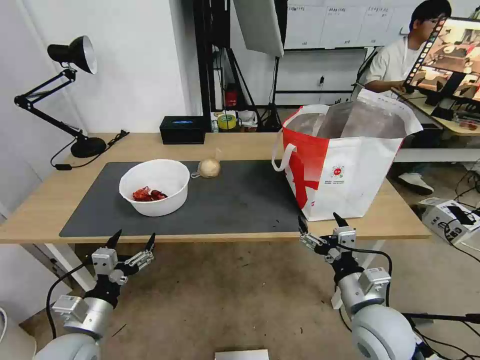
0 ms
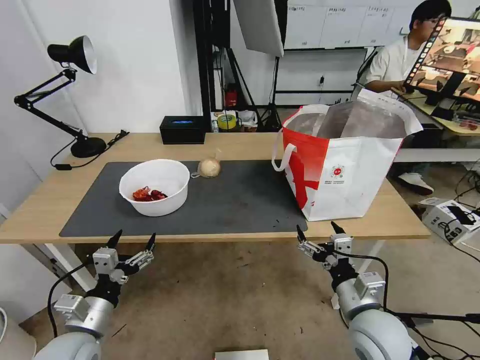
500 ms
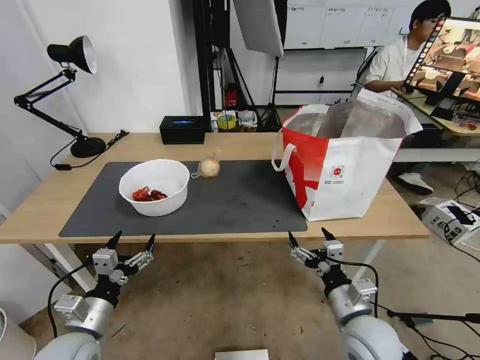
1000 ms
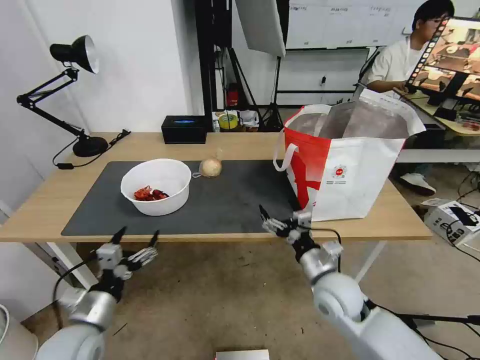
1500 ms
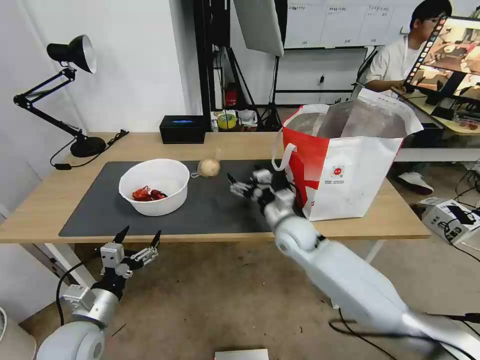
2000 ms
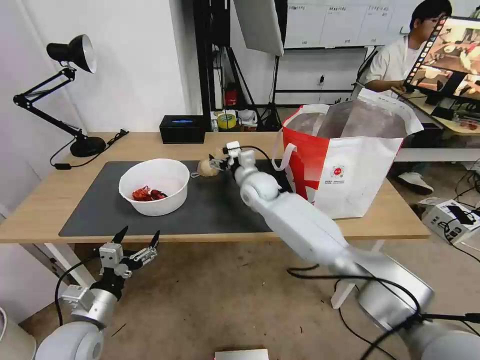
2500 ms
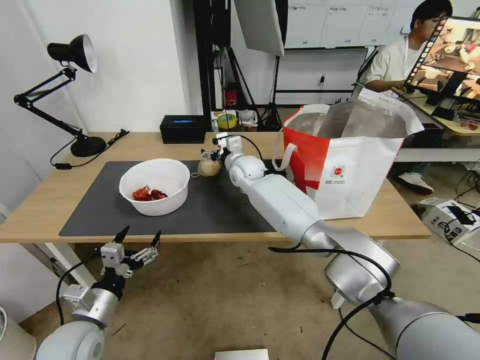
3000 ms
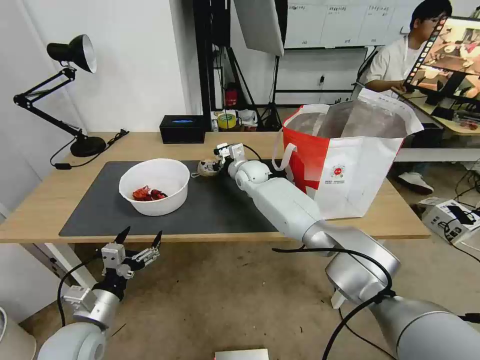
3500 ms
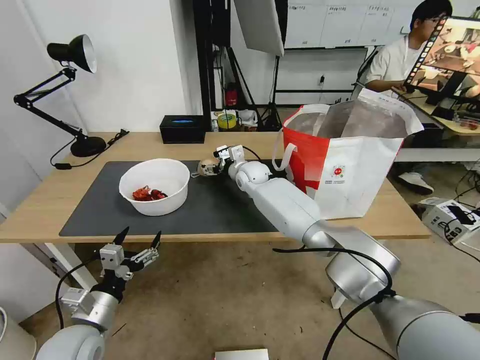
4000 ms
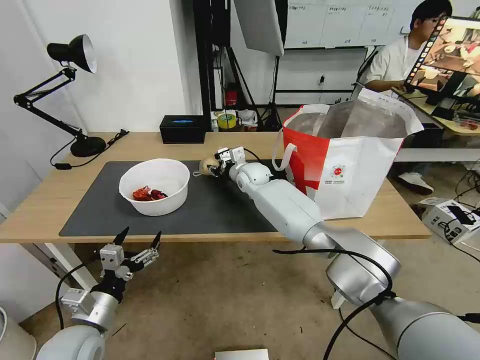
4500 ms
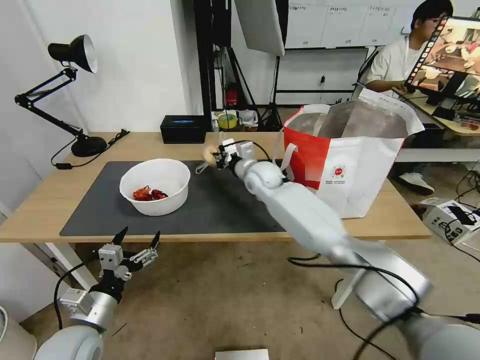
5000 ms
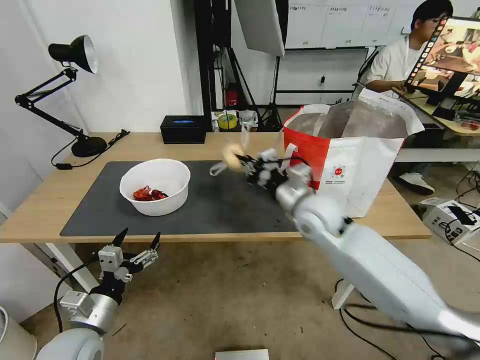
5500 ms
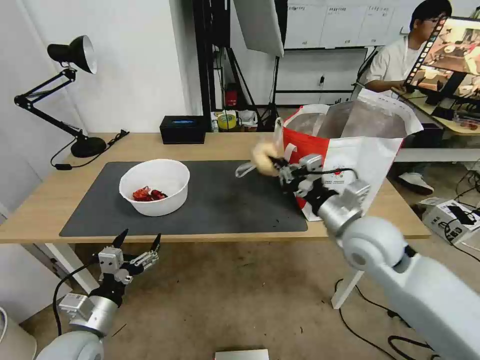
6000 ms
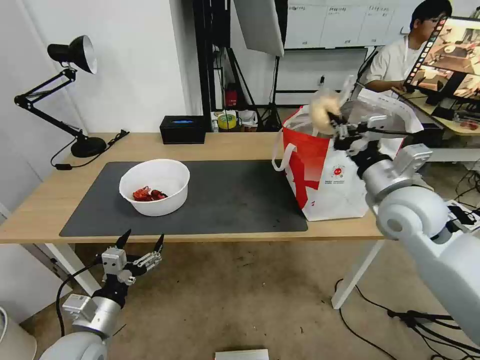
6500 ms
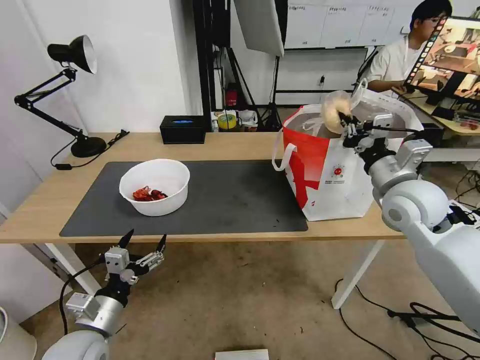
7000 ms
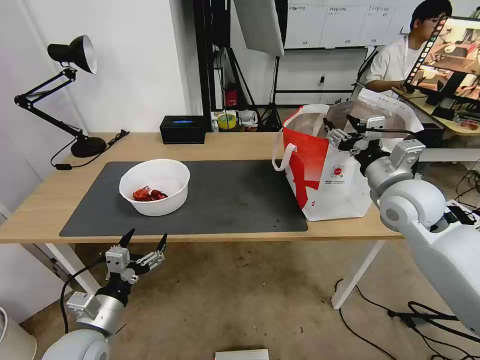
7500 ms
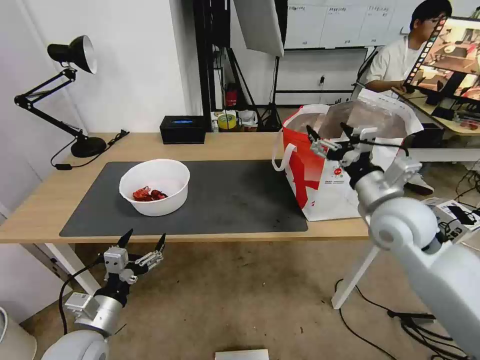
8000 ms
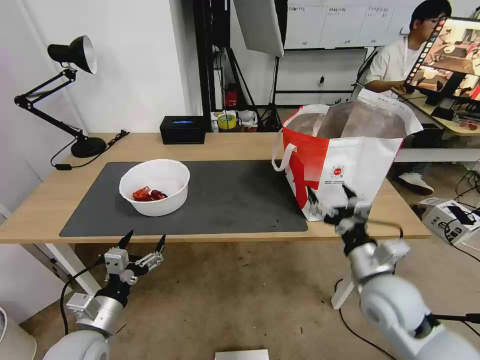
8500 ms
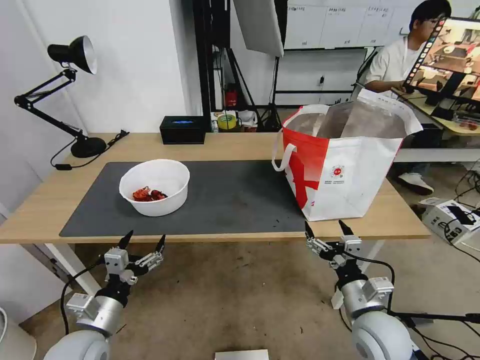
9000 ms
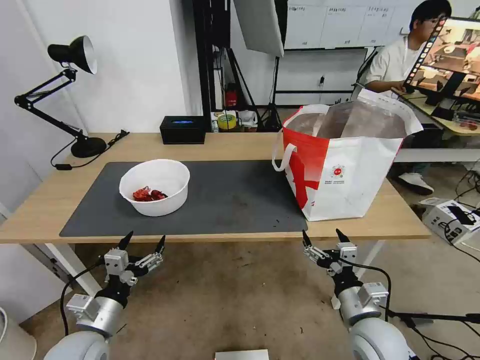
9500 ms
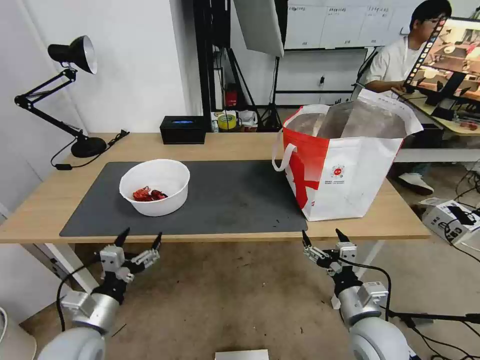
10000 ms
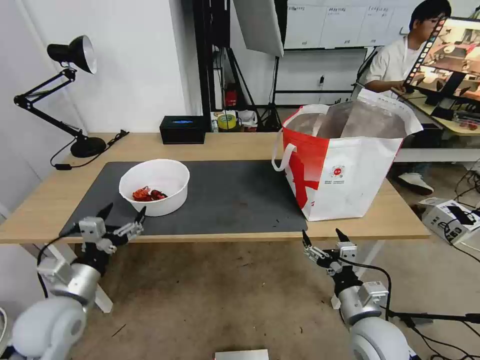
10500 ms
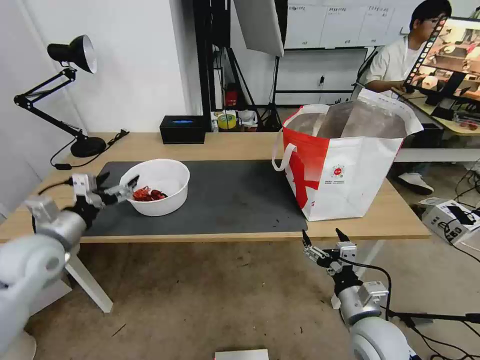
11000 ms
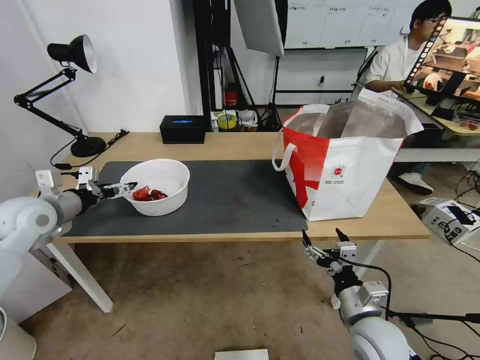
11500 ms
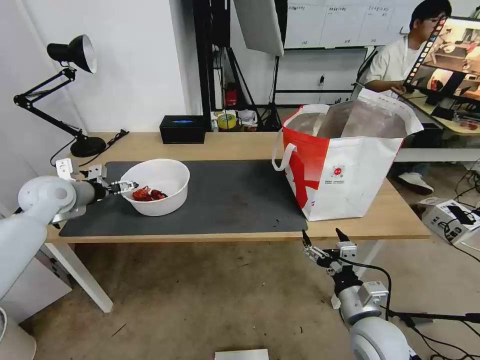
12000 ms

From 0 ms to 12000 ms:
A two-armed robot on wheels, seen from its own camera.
Task of the whole recording: Pick up the trash from the table and place it into the takeout bag.
From 0 ms to 2000 ms: The right gripper heads forward and to the left, covering some 25 cm.
From 2000 ms to 4000 ms: The right gripper travels forward and to the left by approximately 20 cm.
From 4000 ms to 6000 ms: The right gripper travels backward and to the right by about 35 cm, and closes up.
From 6000 ms to 8000 ms: The right gripper goes some 5 cm to the right, and opens up.
From 8000 ms to 10000 ms: The right gripper moves downward and backward, about 25 cm.
From 10000 ms to 12000 ms: The left gripper heads forward, upward and to the left, covering about 35 cm.

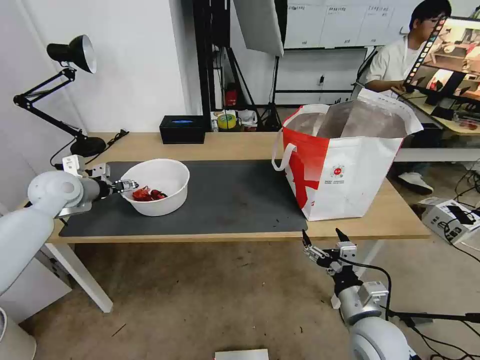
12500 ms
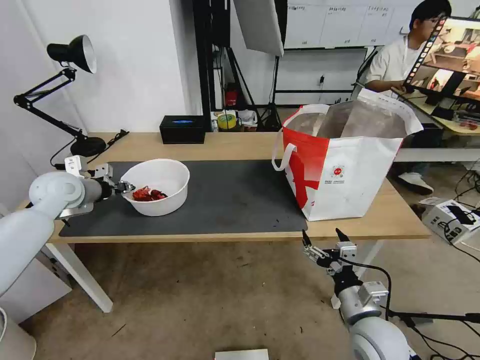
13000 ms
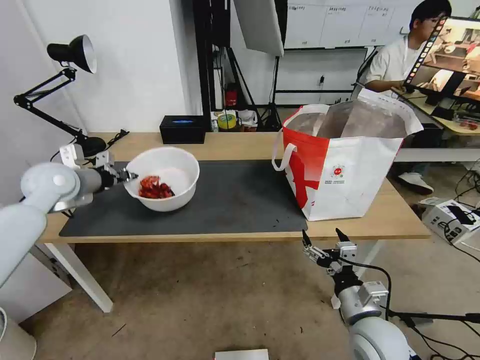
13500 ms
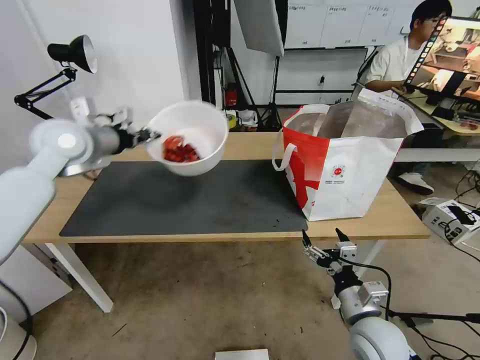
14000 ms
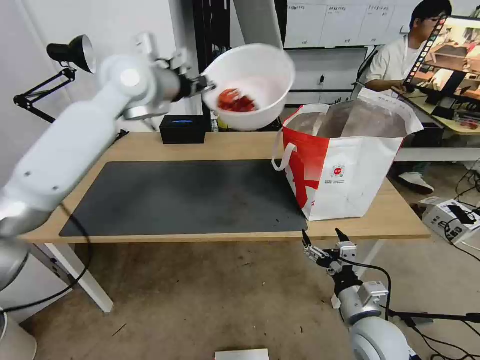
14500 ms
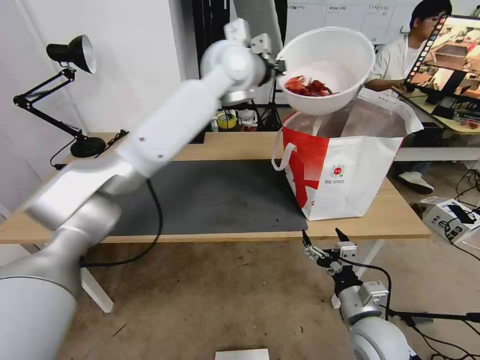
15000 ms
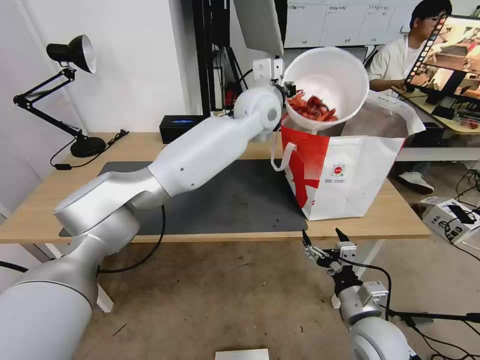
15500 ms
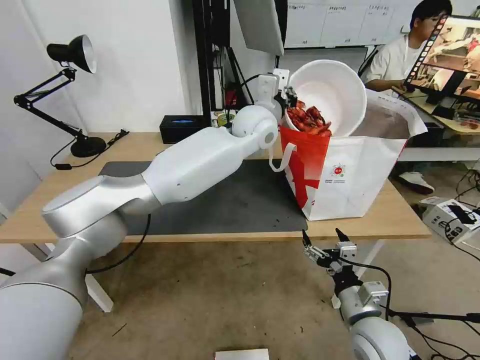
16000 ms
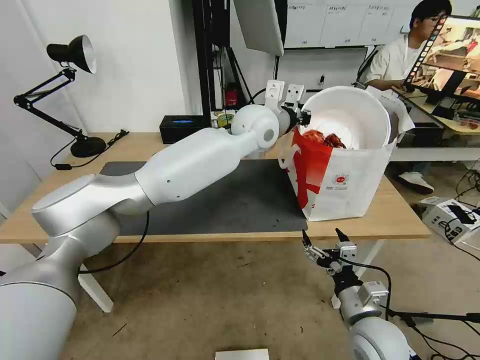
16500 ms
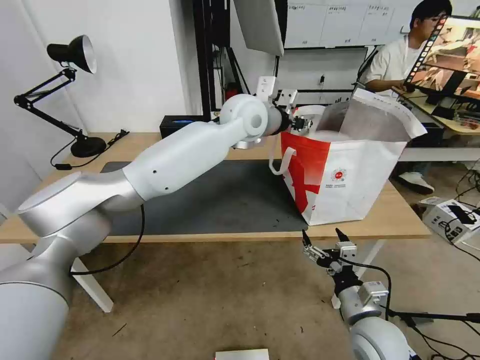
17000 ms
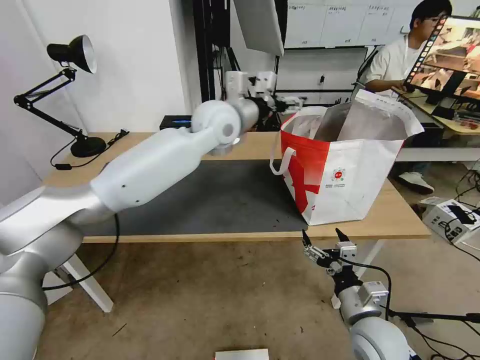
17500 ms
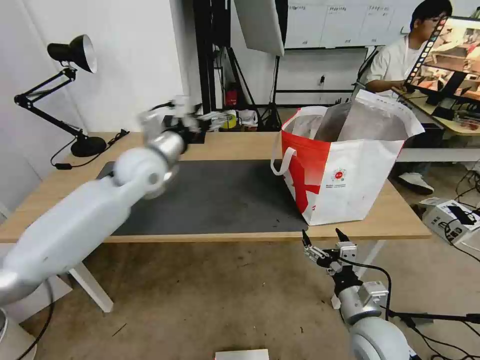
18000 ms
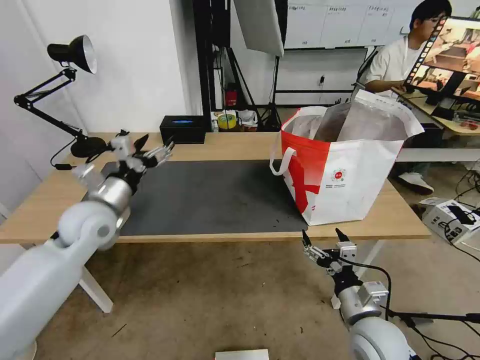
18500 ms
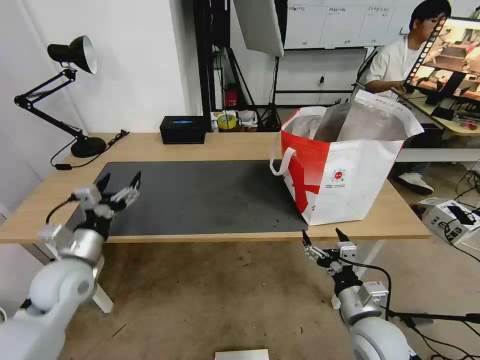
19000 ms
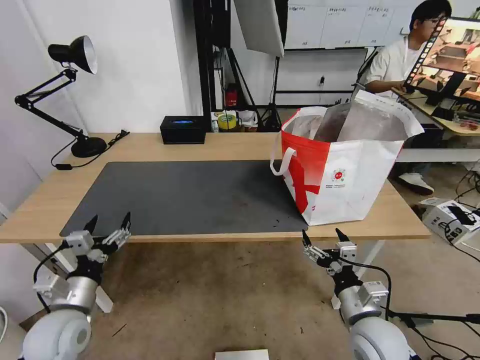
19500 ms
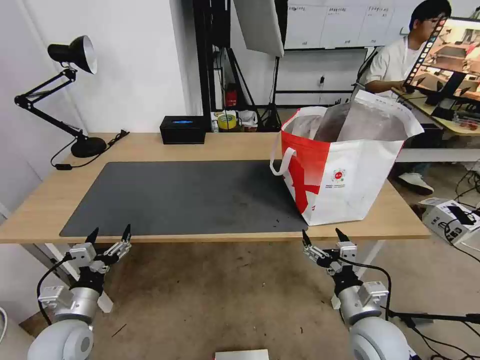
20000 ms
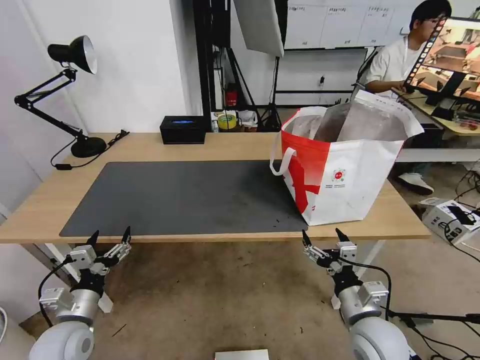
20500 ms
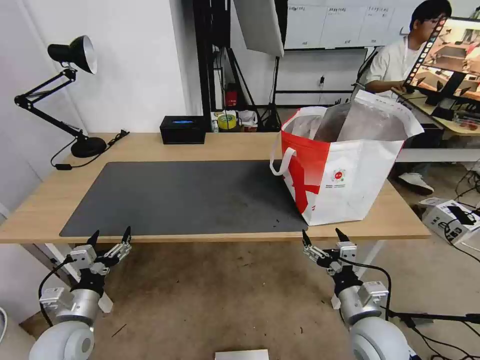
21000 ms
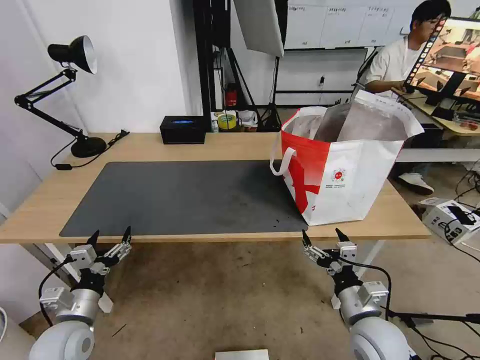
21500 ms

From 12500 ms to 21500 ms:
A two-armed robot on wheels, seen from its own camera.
Task of the whole recording: Pick up the trash from the table and place it into the takeout bag.
From 12500 ms to 14500 ms: The left gripper is displaced to the right and upward by roughly 30 cm, and closes up.
From 14500 ms to 17000 ms: The left gripper travels to the right by about 20 cm, and opens.
From 17000 ms to 19500 ms: The left gripper is displaced to the left, backward and downward by roughly 60 cm, and opens up.
From 19500 ms to 21500 ms: The grippers stay close to where they were, moving slightly.

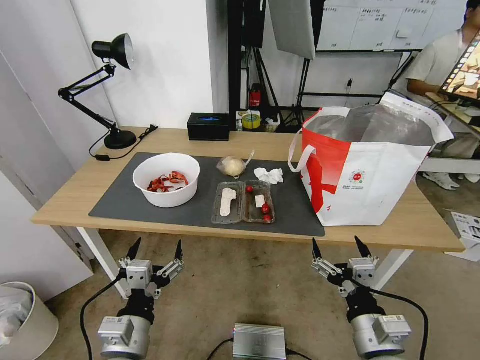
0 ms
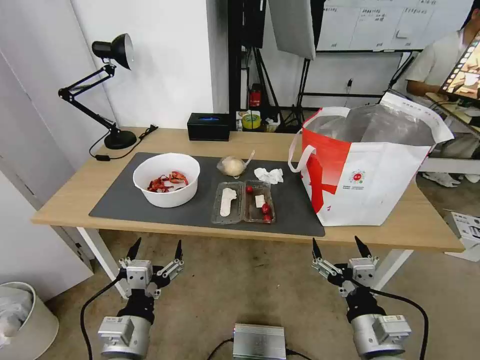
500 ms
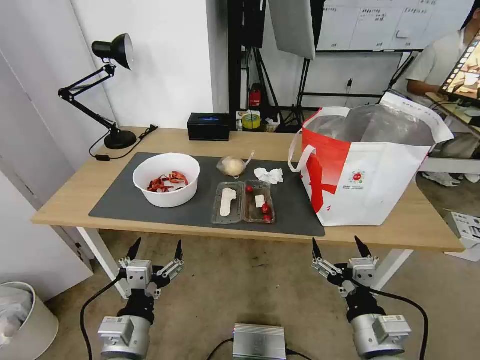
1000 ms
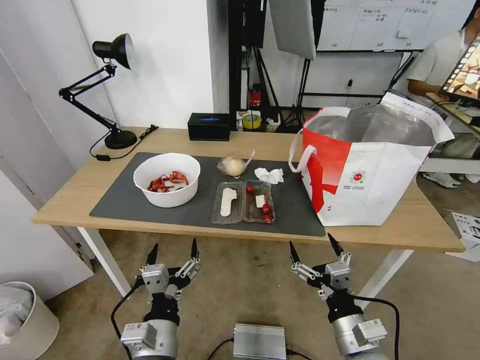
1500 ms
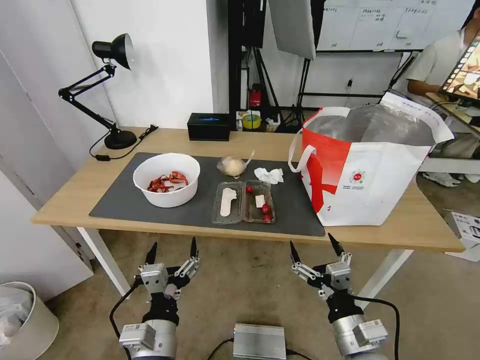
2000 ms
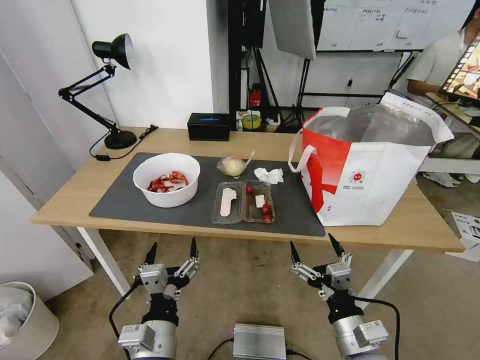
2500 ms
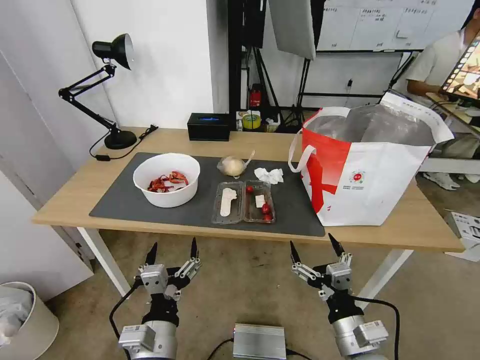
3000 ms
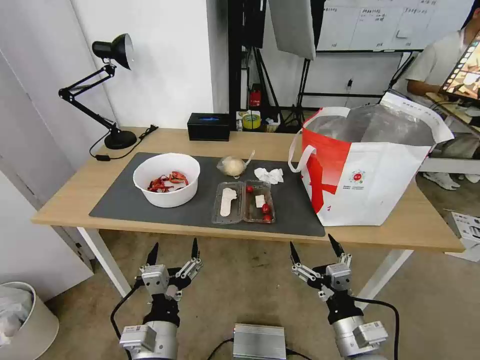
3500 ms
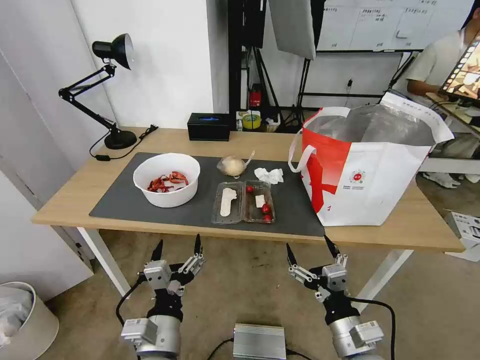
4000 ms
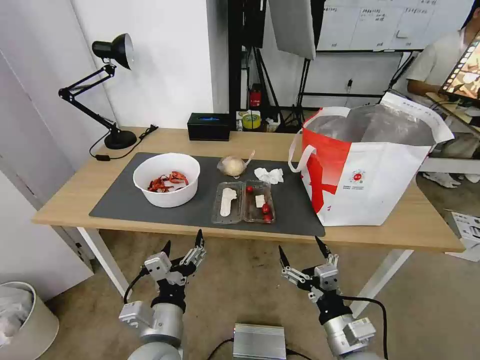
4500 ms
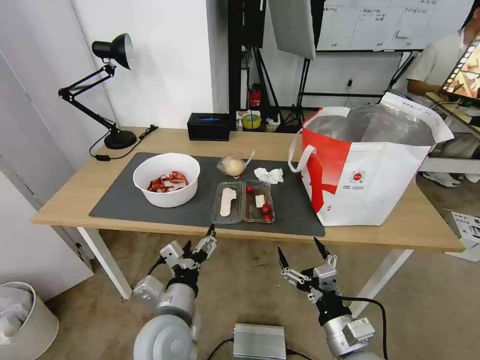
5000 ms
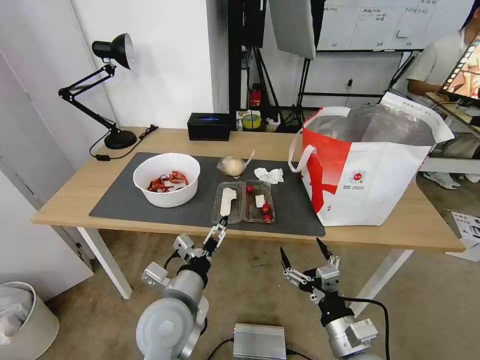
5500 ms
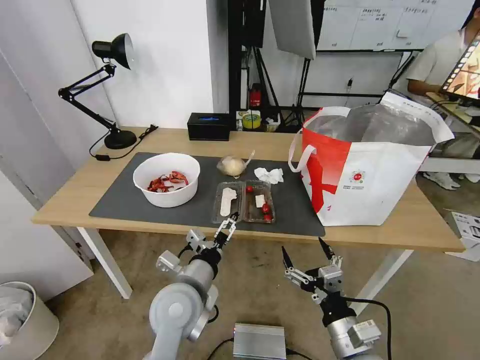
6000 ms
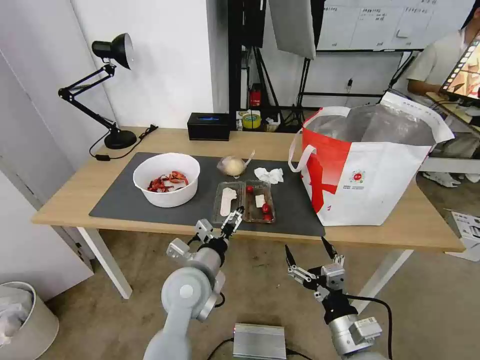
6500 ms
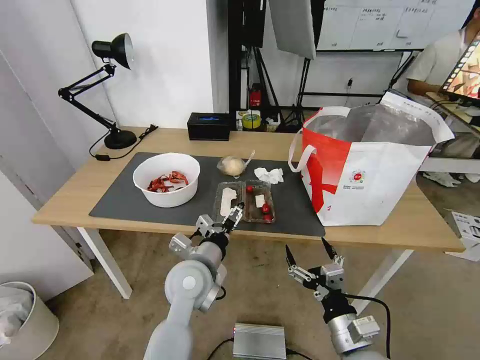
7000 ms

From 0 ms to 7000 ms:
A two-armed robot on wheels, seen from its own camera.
Task of the whole recording: Pick up the trash from the table and place it into the takeout bag.
From 2000 ms to 3500 ms: The two grippers keep their place.
From 3500 ms to 5000 ms: The left gripper moves forward, some 5 cm.
From 5000 ms to 7000 ms: The left gripper is displaced forward by roughly 10 cm.
